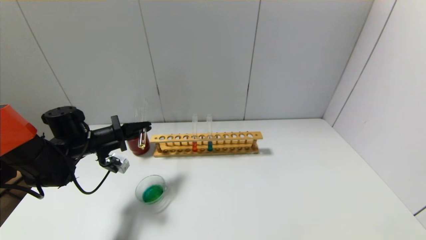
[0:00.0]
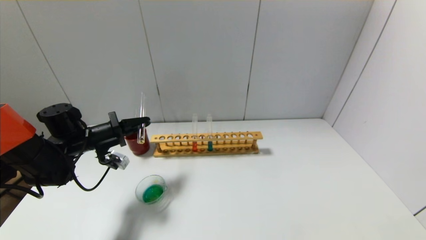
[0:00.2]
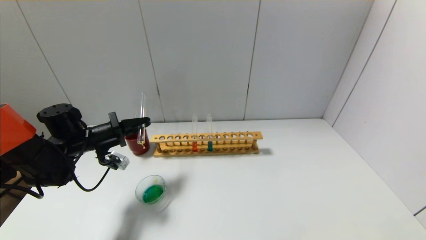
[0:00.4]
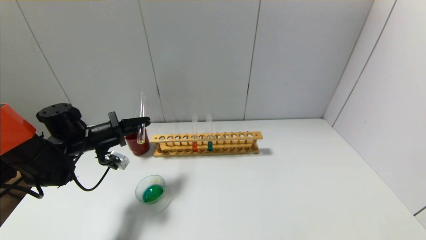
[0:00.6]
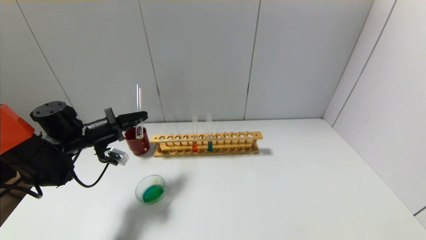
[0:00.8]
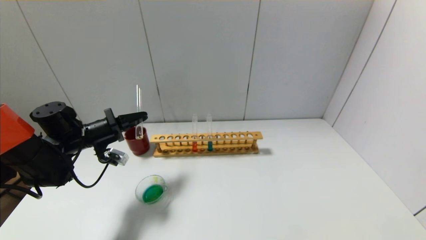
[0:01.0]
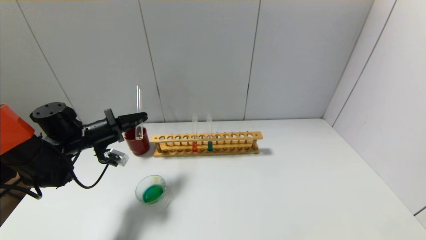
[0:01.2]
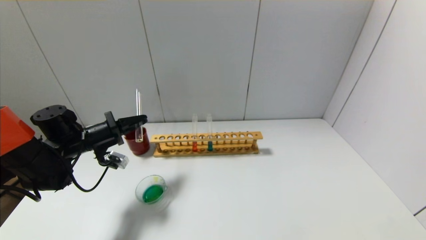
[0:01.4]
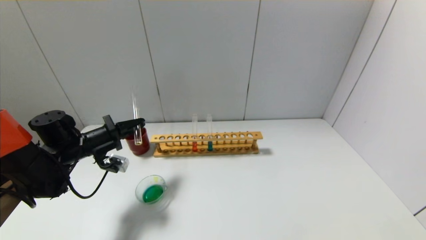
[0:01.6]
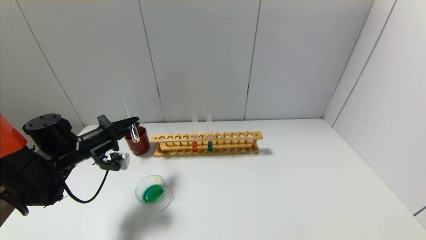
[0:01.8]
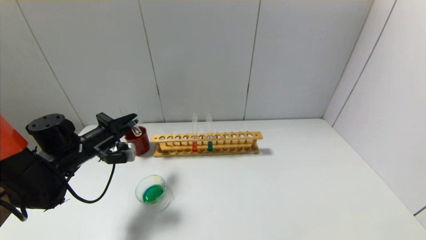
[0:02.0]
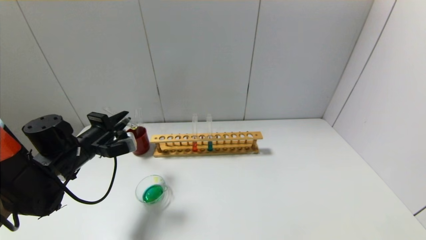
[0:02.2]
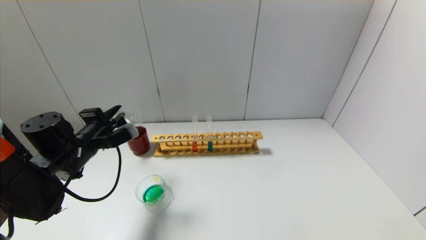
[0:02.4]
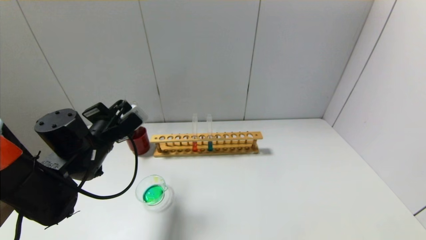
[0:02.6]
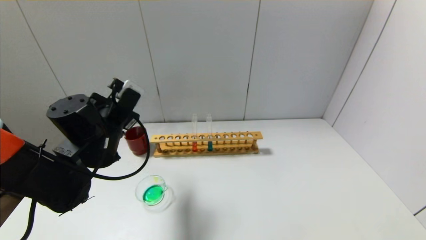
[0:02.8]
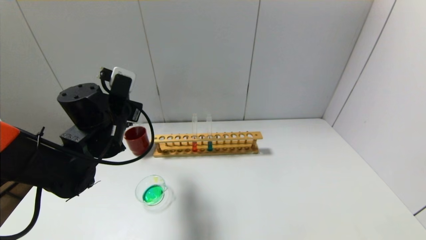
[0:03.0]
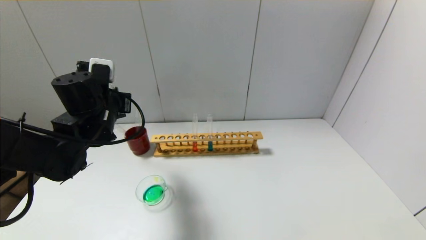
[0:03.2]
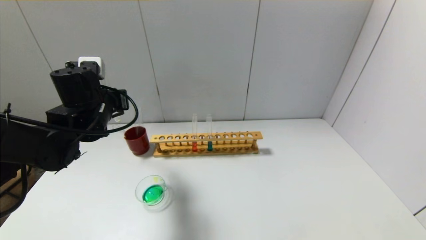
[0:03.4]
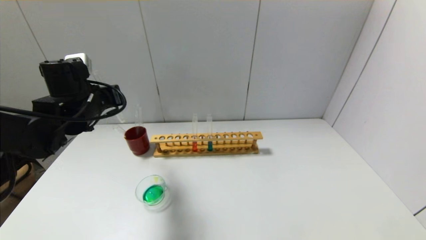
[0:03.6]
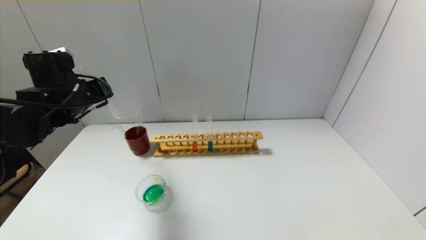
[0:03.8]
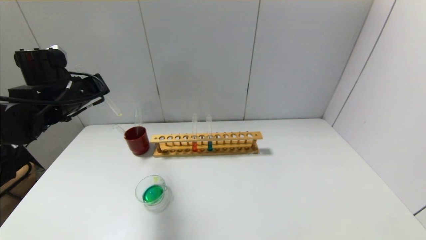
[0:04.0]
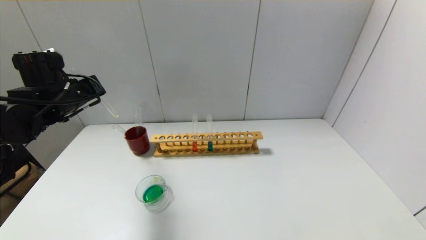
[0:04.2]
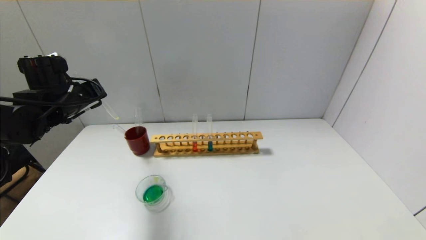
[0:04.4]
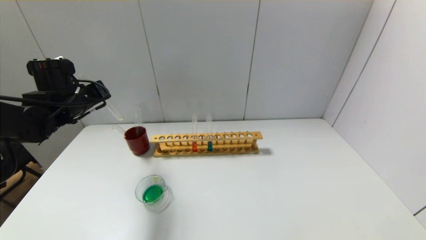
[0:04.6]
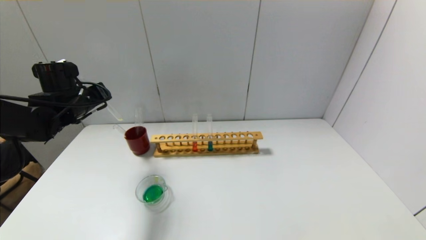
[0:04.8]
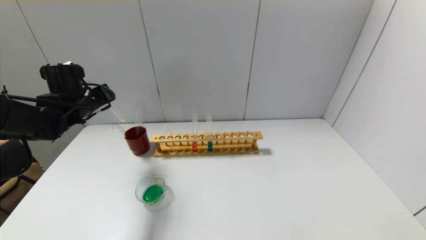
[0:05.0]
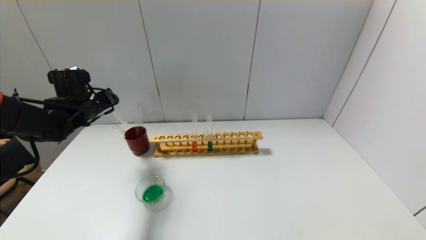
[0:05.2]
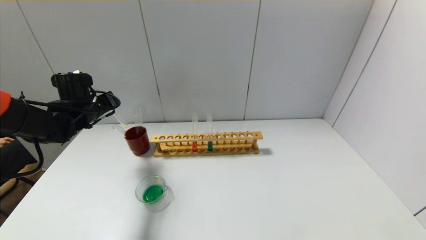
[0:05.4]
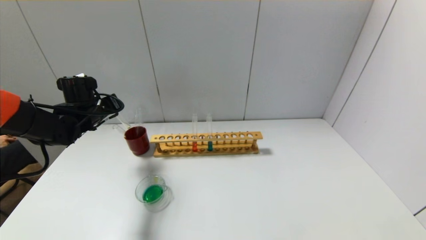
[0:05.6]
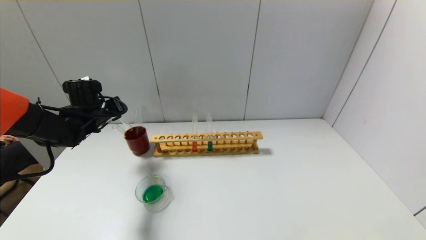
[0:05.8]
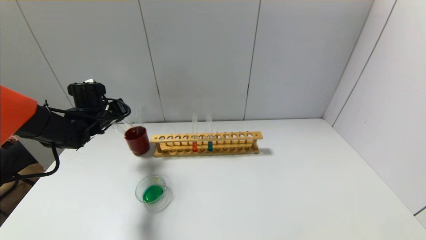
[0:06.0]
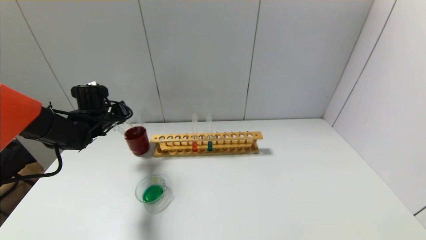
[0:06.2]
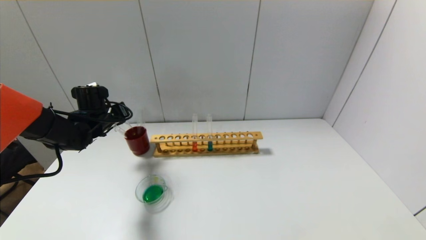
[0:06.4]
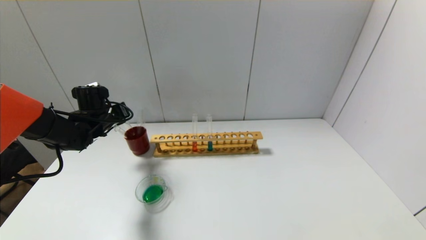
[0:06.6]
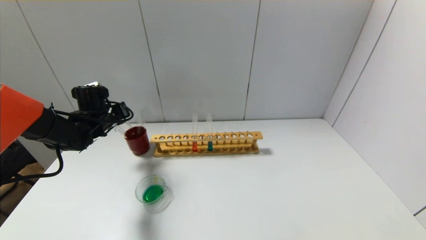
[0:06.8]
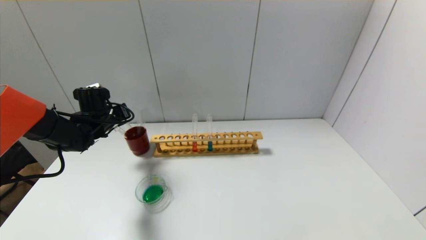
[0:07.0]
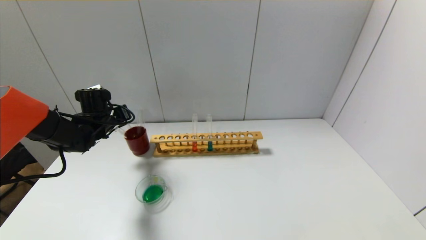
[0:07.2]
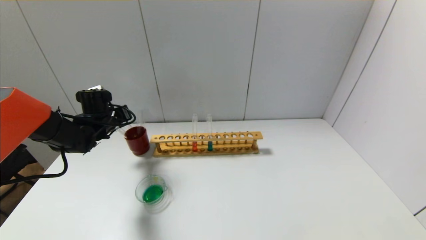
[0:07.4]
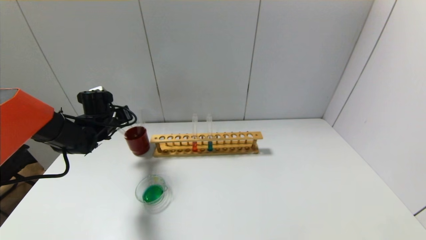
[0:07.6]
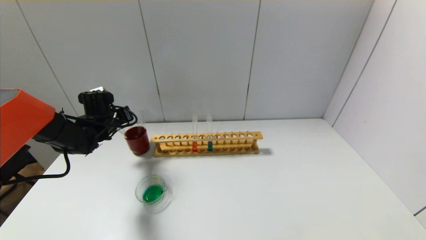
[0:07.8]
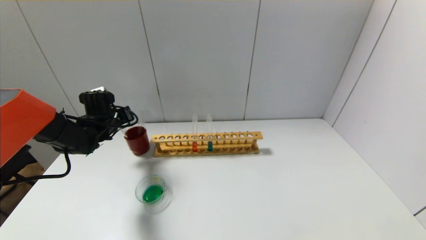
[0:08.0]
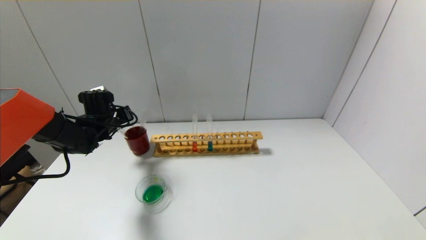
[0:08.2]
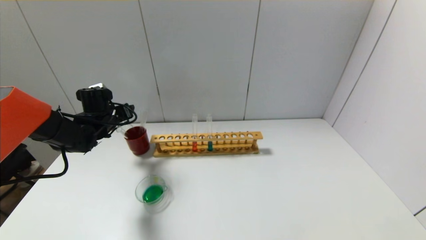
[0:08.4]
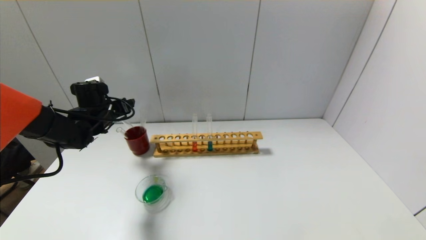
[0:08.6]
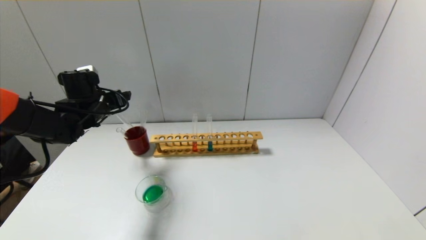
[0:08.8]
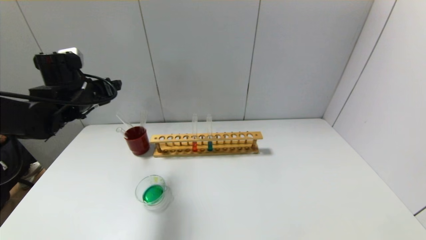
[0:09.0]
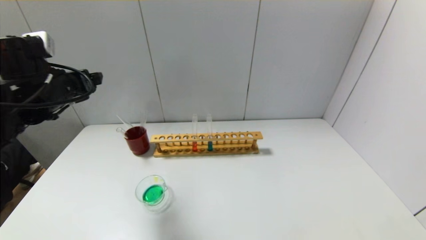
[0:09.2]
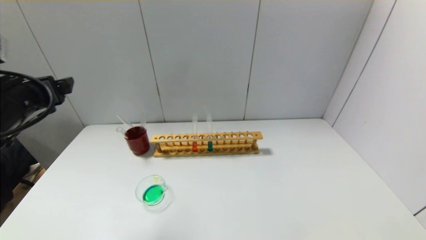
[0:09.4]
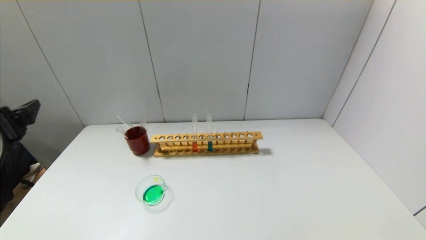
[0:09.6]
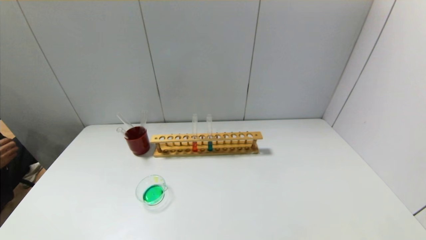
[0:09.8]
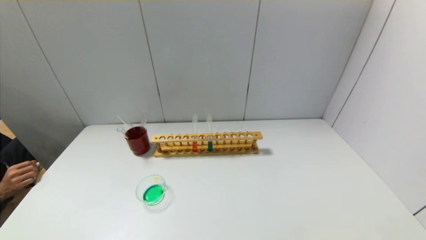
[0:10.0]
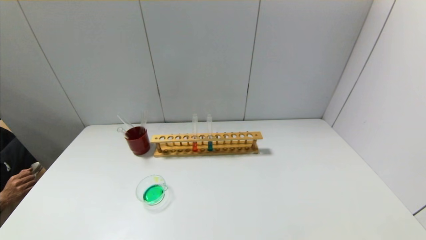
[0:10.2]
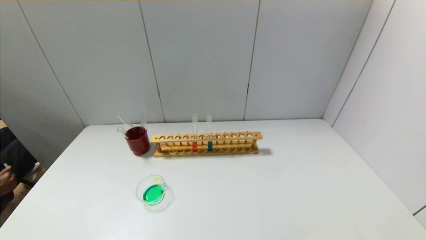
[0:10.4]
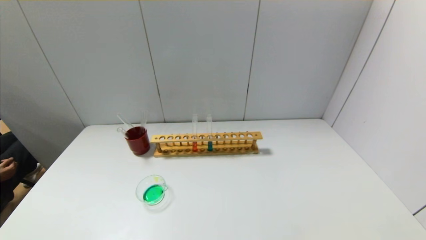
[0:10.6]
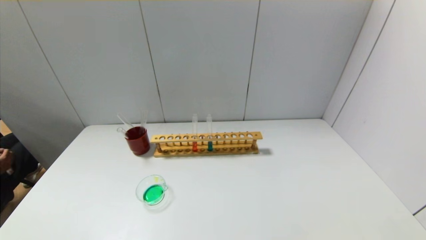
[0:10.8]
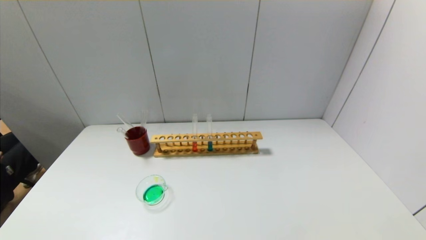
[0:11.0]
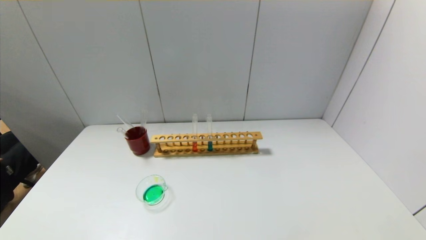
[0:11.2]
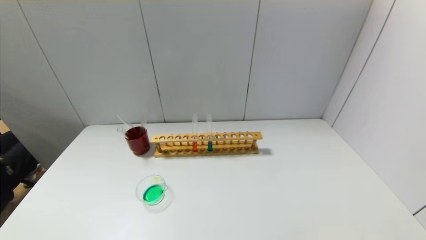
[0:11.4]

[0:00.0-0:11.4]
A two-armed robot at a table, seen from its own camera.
Step, 0:02.0 to 0:08.0: Place the test tube into the brown cup with the left gripper.
0:00.0 to 0:01.4: There are only small adjustments of the grippers.
0:01.4 to 0:02.8: The left gripper moves to the right, upward and backward, approximately 15 cm.
0:02.8 to 0:04.2: The left gripper is displaced to the left and upward by some 10 cm.
0:04.2 to 0:05.6: The left gripper goes approximately 10 cm downward and forward.
0:05.6 to 0:07.2: The grippers move only a little.
0:07.2 to 0:08.6: The left gripper opens up.
0:08.6 to 0:10.0: The left gripper goes about 40 cm backward.
0:10.0 to 0:11.4: The left gripper is displaced downward and backward by approximately 15 cm.
